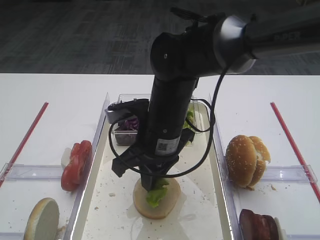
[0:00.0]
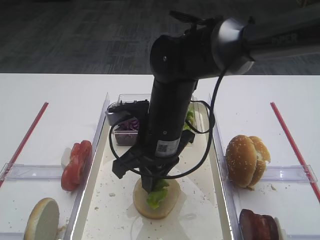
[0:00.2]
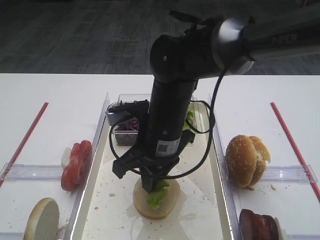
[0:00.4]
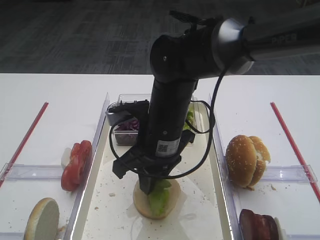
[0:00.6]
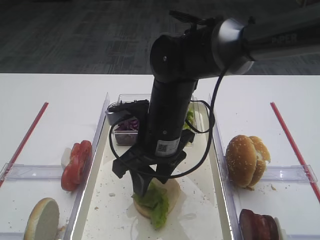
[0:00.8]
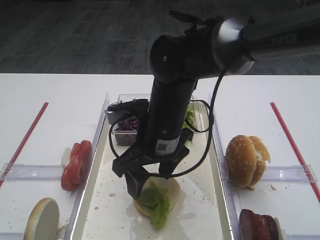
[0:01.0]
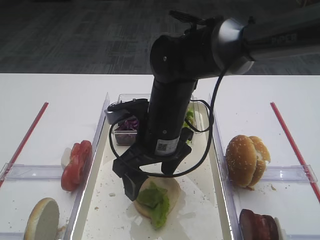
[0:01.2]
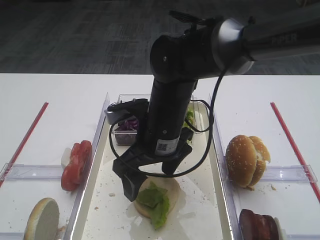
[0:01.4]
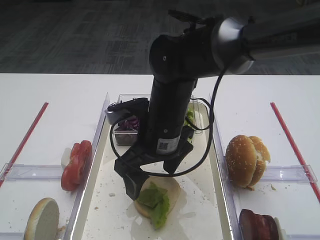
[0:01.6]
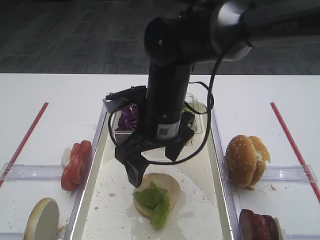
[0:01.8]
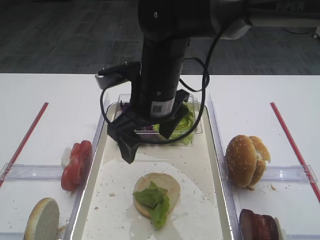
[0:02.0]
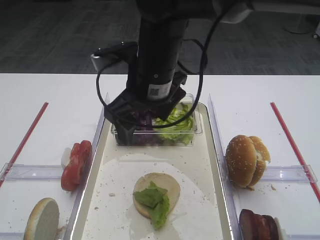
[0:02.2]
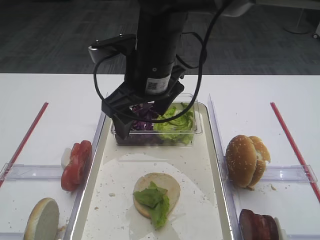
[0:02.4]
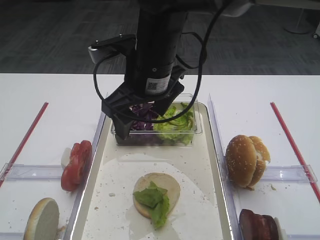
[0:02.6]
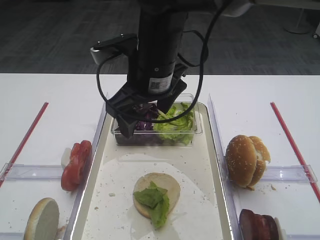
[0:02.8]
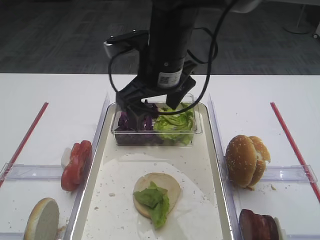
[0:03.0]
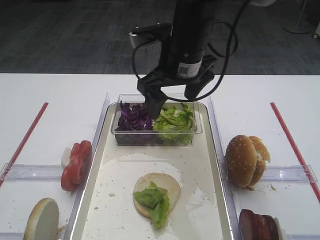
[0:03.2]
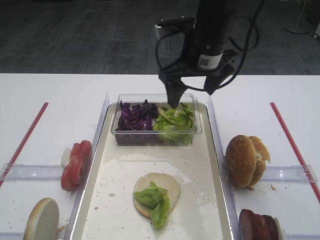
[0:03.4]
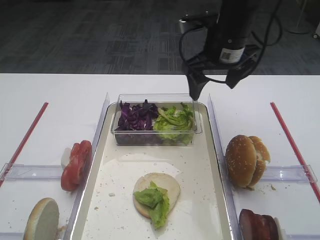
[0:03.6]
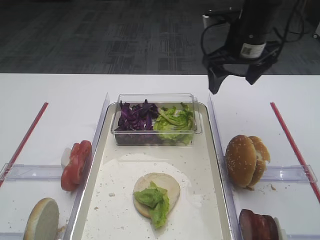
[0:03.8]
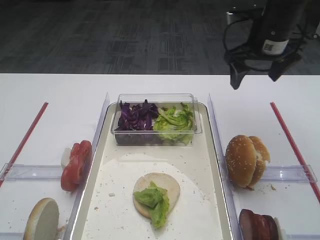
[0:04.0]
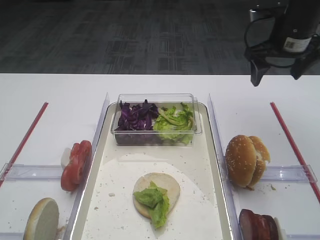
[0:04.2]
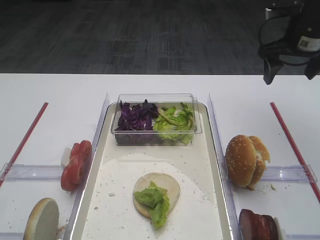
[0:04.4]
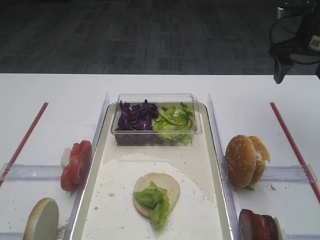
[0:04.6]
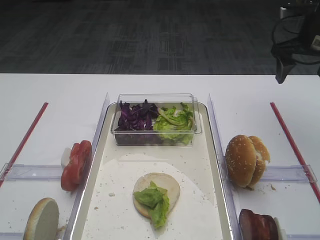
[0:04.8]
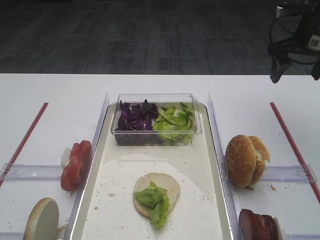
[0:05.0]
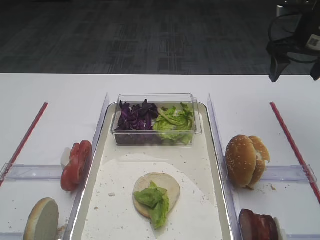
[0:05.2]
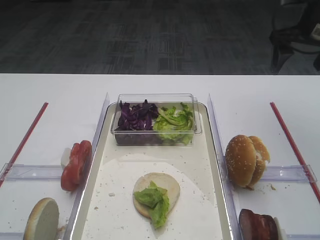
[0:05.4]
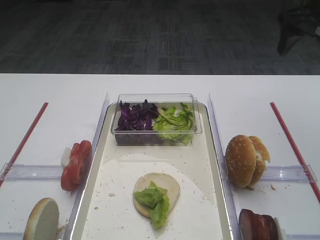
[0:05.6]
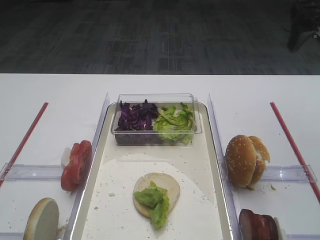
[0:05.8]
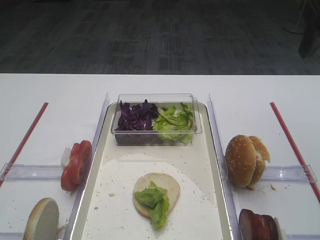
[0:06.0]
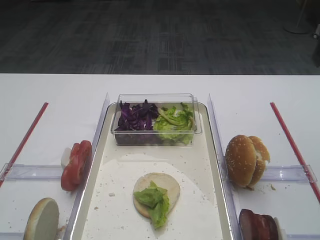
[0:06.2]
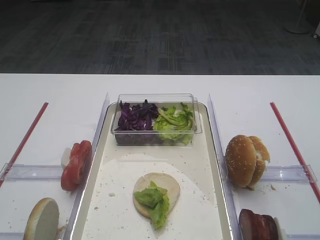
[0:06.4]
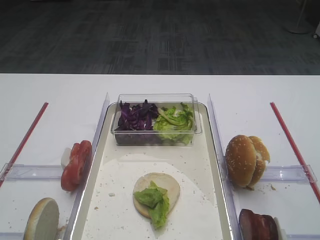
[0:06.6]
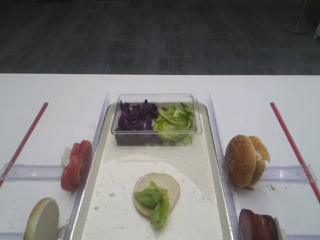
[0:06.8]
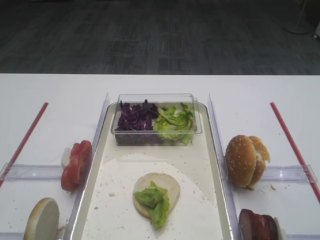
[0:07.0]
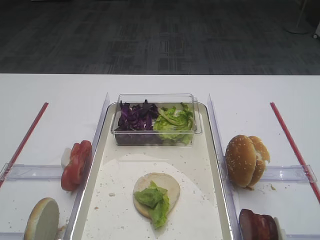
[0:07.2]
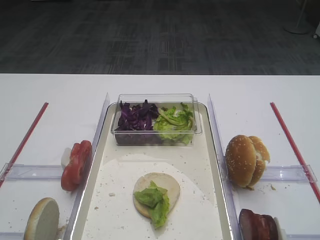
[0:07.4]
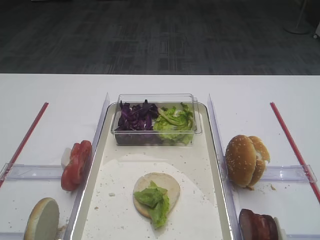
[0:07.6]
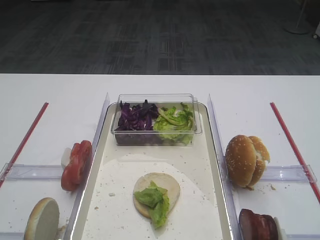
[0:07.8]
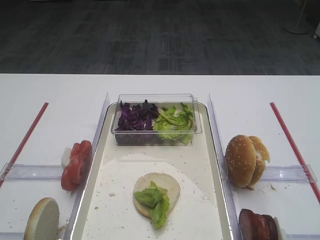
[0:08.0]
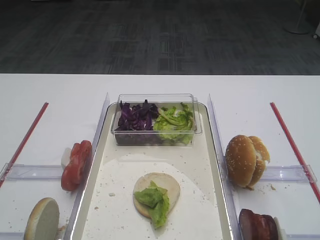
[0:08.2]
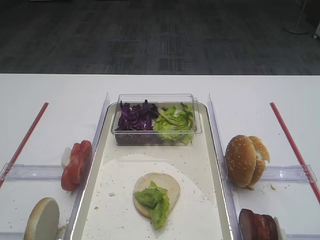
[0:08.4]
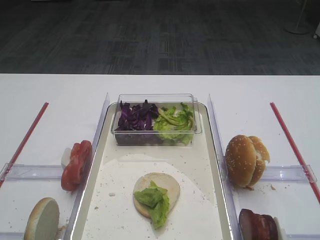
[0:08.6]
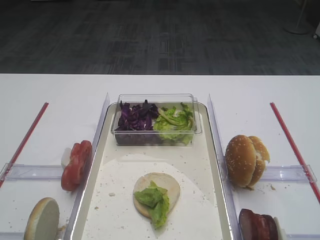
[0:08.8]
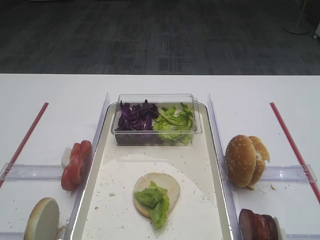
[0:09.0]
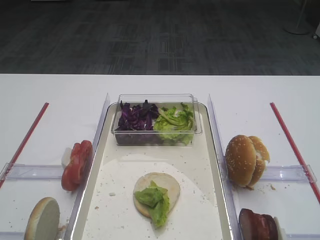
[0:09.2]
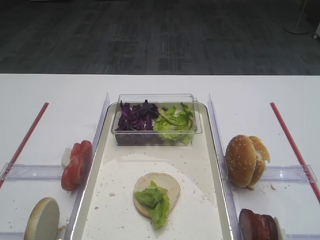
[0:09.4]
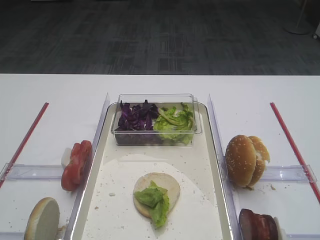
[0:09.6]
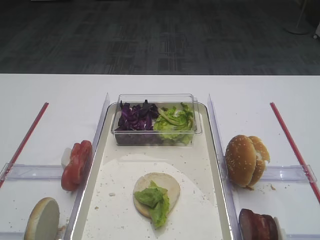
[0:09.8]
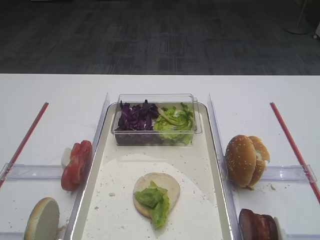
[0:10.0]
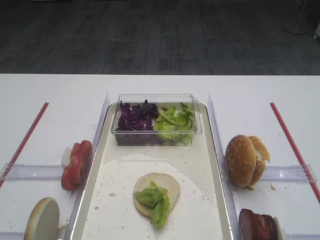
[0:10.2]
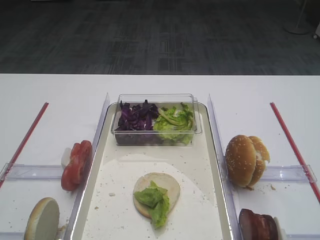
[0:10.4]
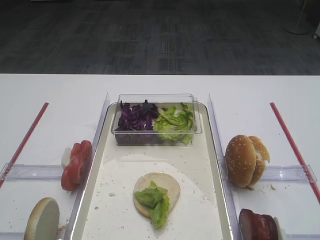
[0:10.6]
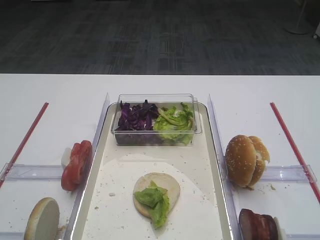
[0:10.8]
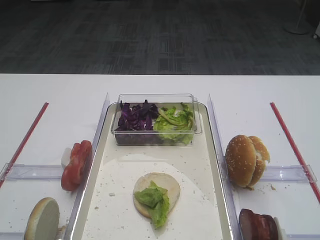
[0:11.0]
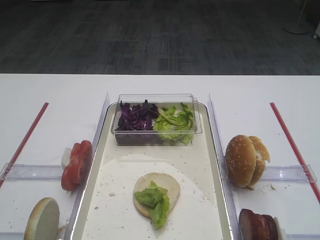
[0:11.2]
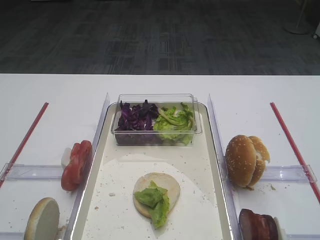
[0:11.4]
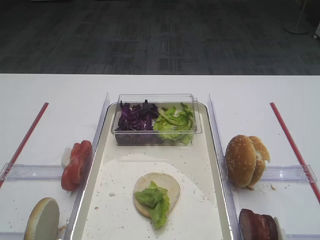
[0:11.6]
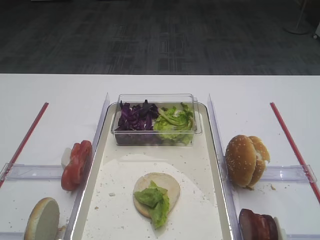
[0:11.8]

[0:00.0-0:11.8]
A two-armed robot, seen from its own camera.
0:00.0 to 0:01.4: The right gripper opens.
0:01.4 to 0:03.0: The right gripper goes approximately 10 cm upward.
0:03.0 to 0:04.4: The right gripper moves to the right, approximately 25 cm.
0:04.4 to 0:06.0: The right gripper moves backward and upward, roughly 15 cm.
0:10.4 to 0:11.8: Both grippers stay about where they are.

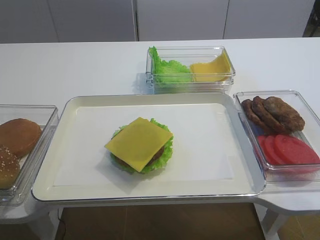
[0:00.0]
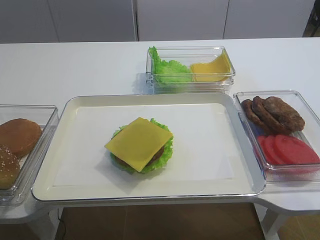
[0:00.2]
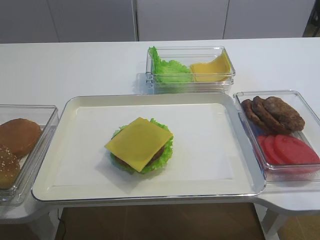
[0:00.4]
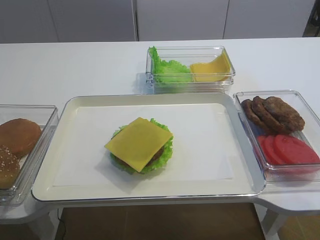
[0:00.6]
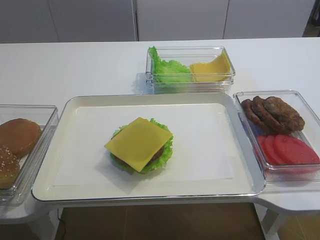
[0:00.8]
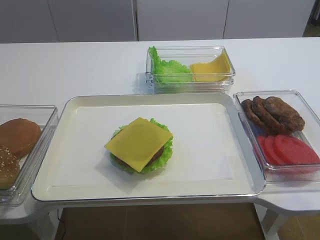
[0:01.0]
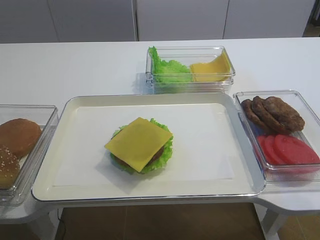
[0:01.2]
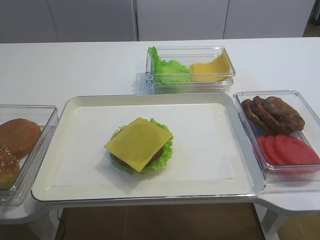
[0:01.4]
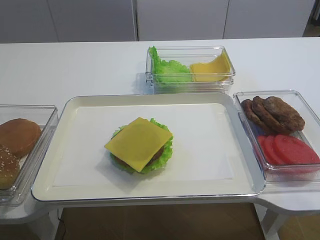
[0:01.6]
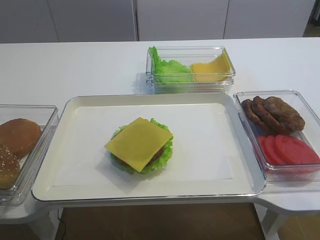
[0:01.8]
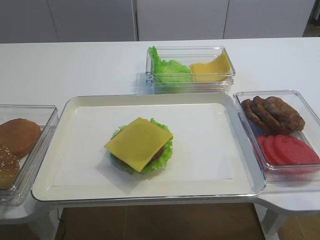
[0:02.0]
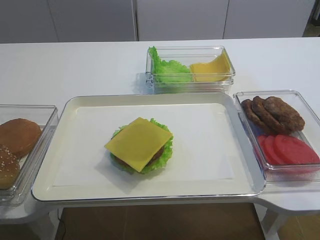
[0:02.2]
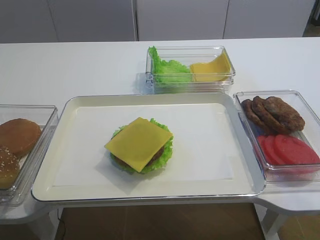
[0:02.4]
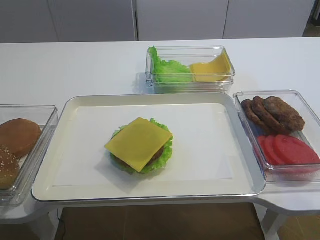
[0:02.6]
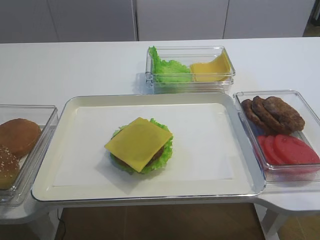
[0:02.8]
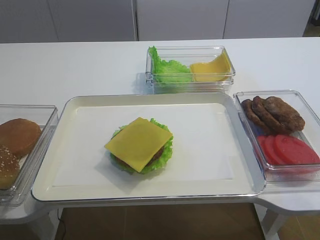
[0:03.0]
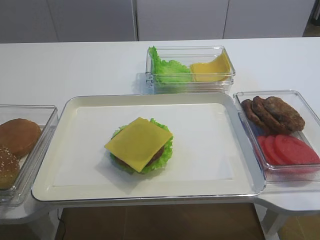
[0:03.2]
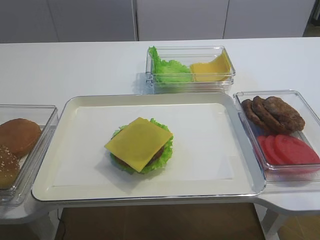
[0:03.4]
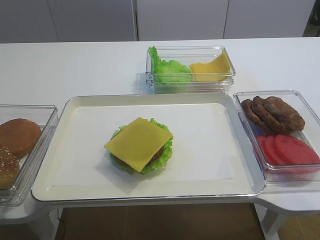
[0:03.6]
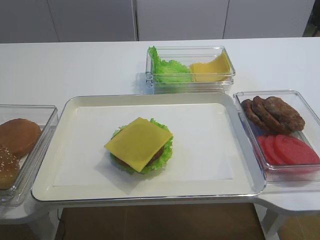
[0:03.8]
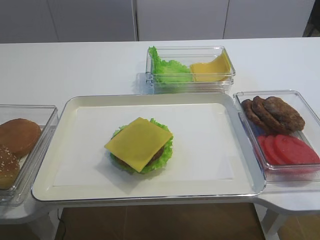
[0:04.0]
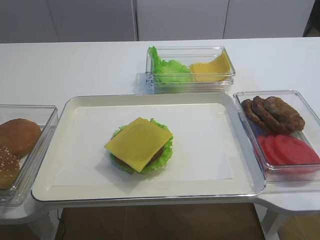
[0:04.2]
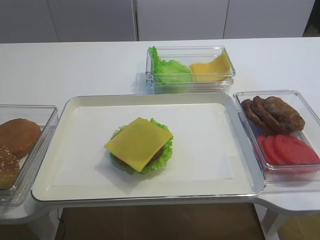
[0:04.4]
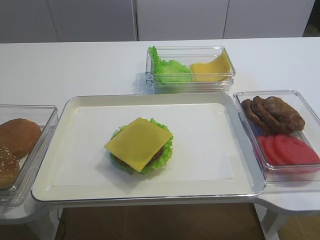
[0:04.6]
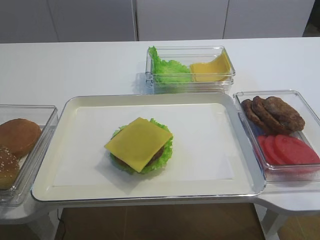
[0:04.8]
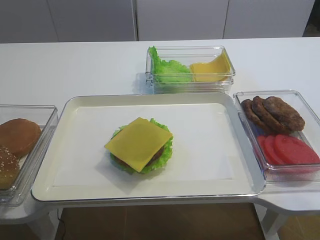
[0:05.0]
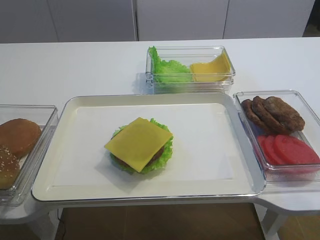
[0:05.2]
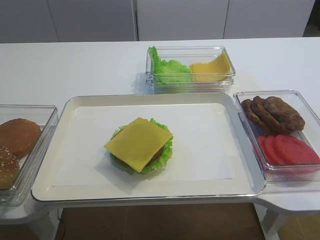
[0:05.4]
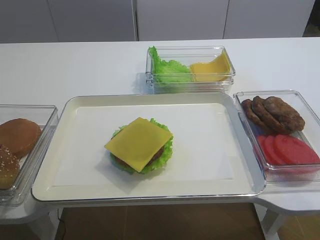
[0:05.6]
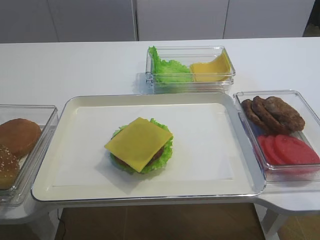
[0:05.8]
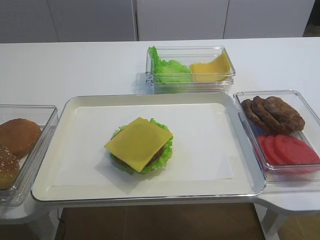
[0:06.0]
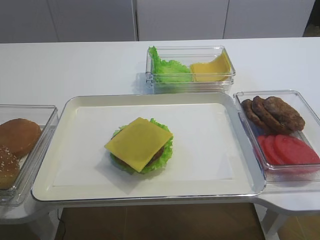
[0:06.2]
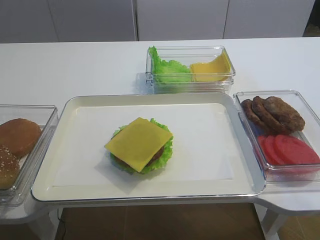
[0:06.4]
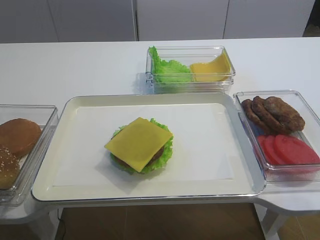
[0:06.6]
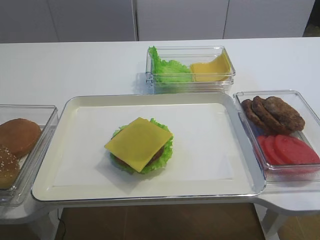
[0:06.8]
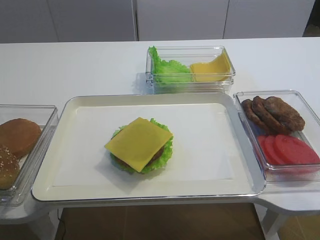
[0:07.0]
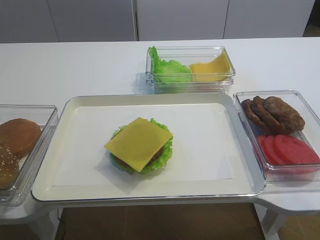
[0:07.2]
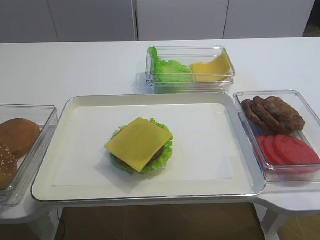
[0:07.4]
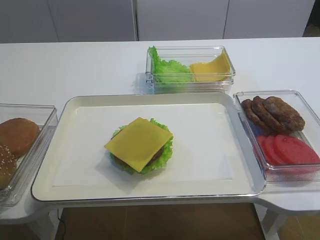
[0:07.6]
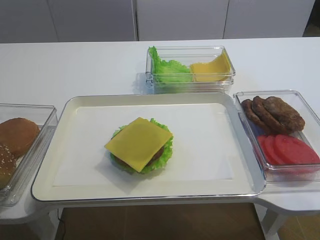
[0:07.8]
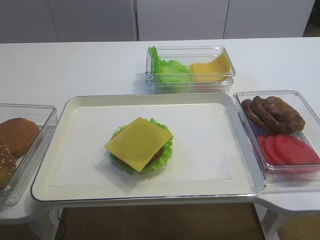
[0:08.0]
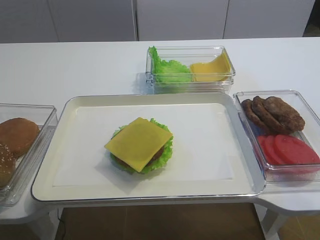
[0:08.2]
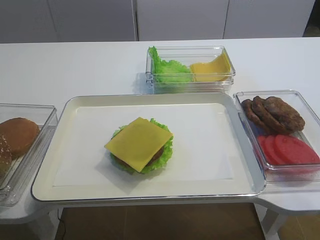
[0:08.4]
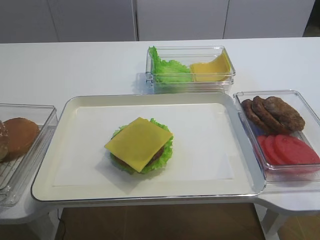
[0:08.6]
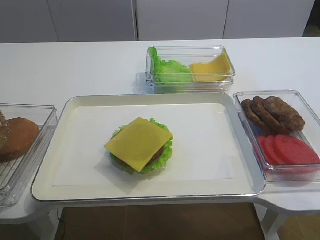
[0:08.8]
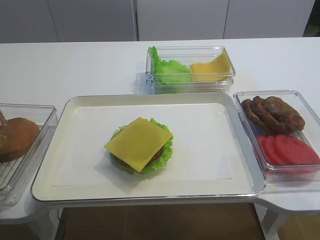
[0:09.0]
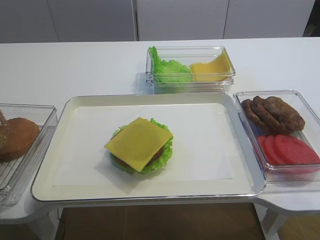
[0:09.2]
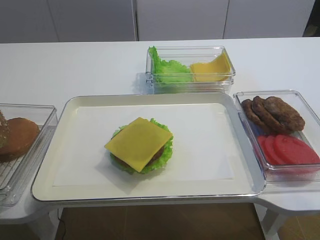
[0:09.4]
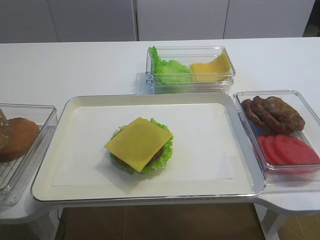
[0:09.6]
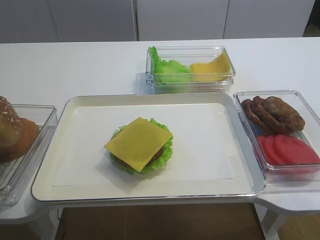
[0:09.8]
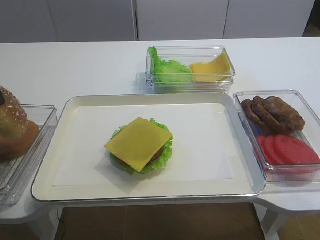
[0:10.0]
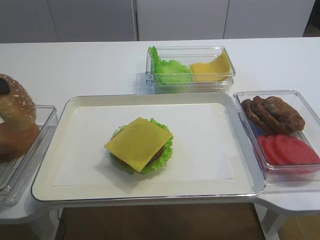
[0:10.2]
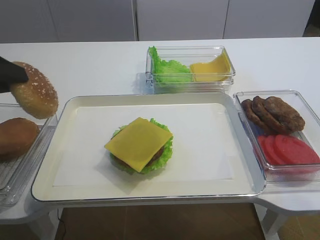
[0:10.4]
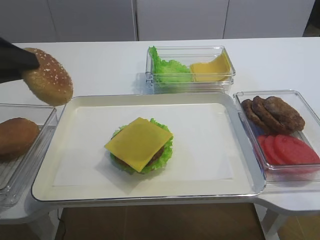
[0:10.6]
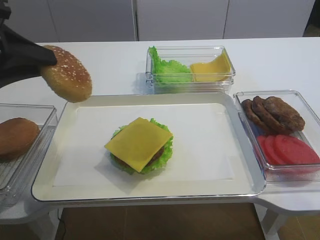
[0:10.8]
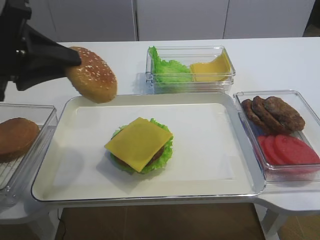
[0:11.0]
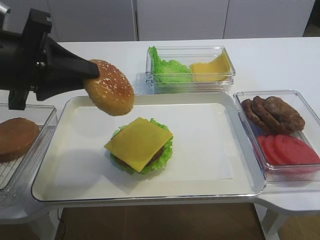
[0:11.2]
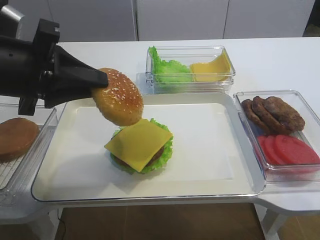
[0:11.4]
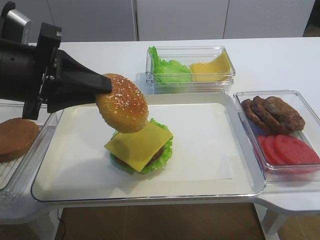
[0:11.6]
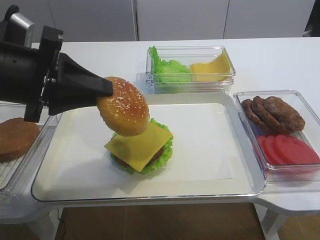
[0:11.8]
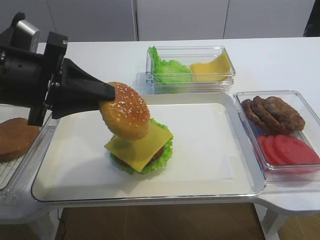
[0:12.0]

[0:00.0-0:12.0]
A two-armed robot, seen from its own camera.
Step, 0:00.0 to 0:10.2: Pick up the hamburger lid with the left gripper.
0:04.4 to 0:06.0: The two grippers keep their place.
0:06.0 to 0:07.6: The left gripper closes.
0:10.4 to 0:12.0: The left gripper shifts about 5 cm to the right.
